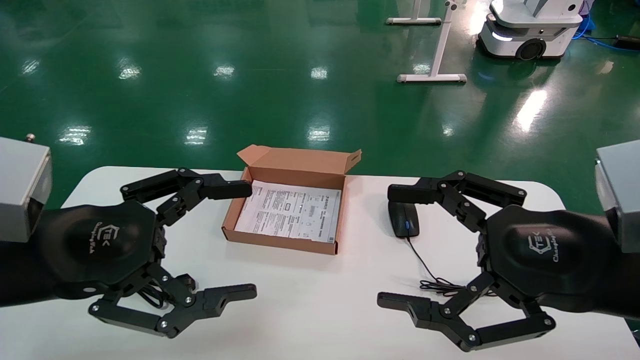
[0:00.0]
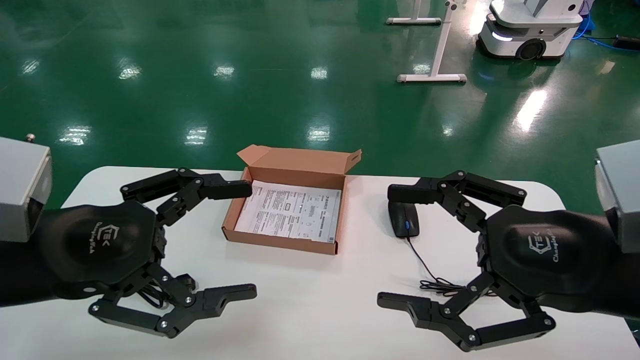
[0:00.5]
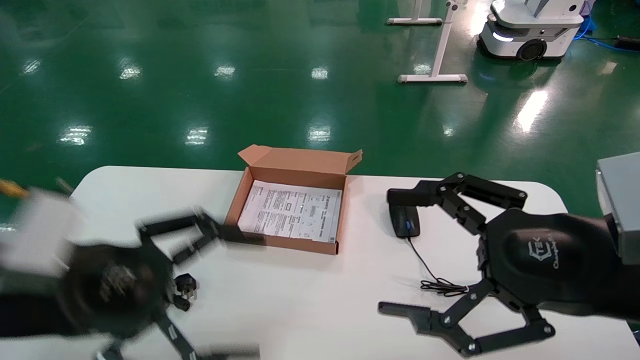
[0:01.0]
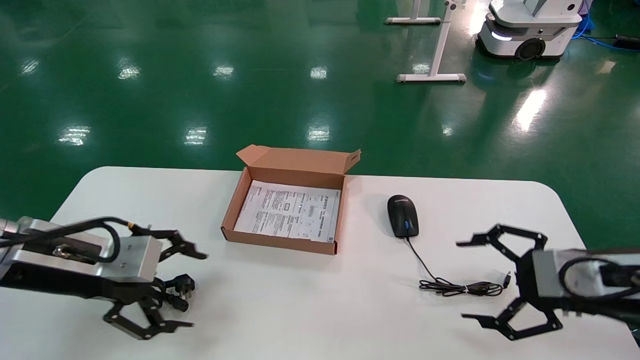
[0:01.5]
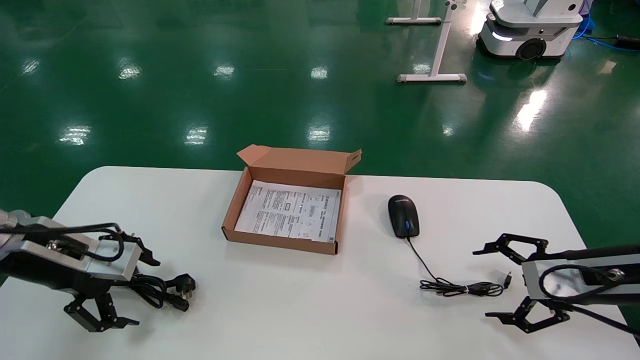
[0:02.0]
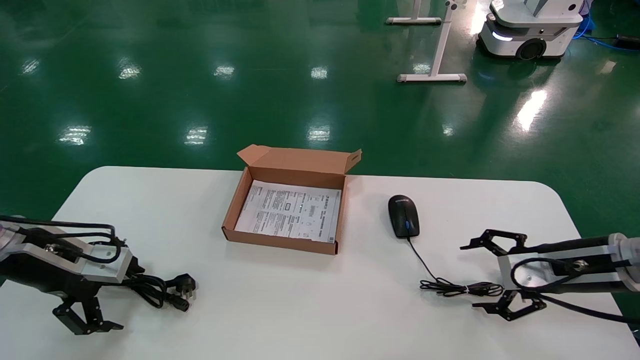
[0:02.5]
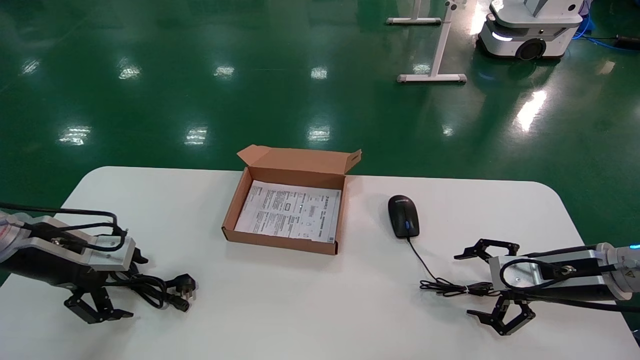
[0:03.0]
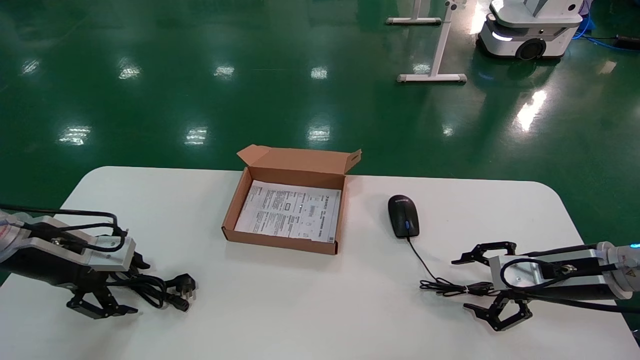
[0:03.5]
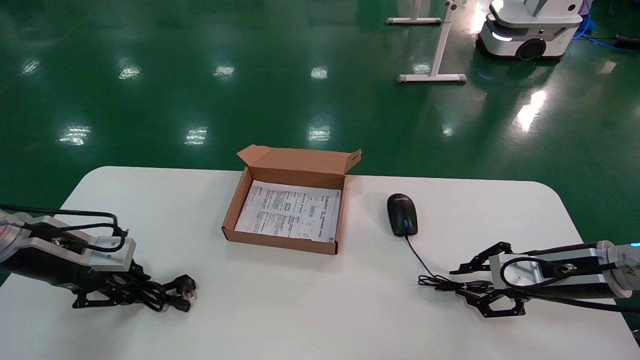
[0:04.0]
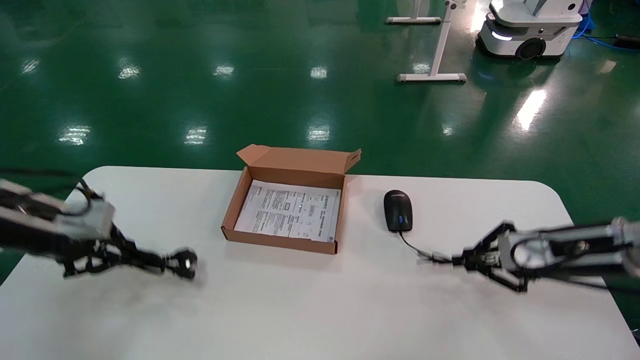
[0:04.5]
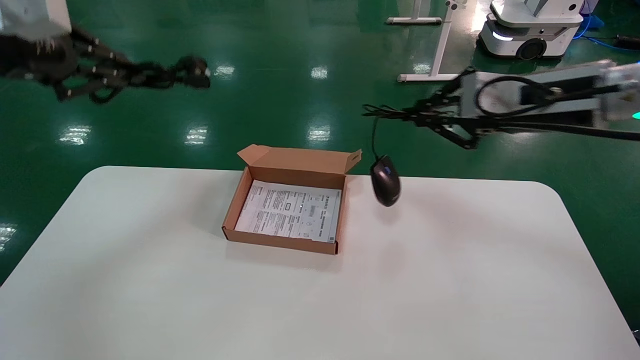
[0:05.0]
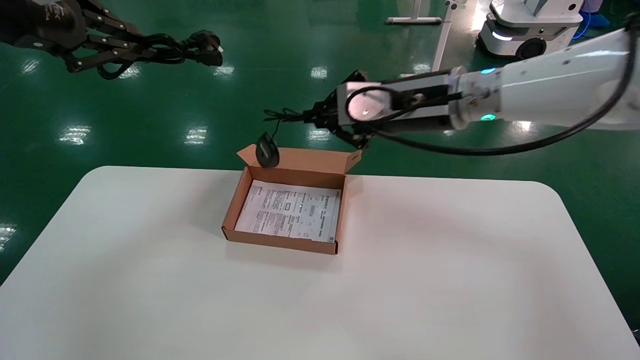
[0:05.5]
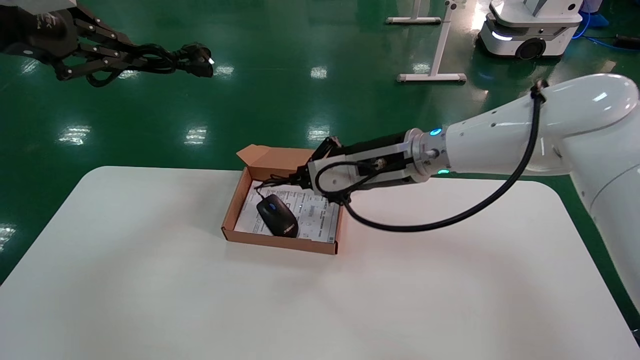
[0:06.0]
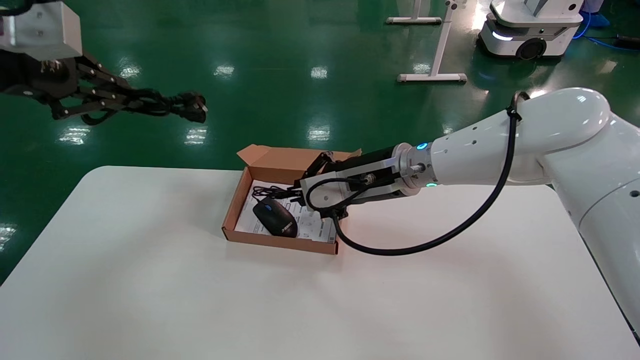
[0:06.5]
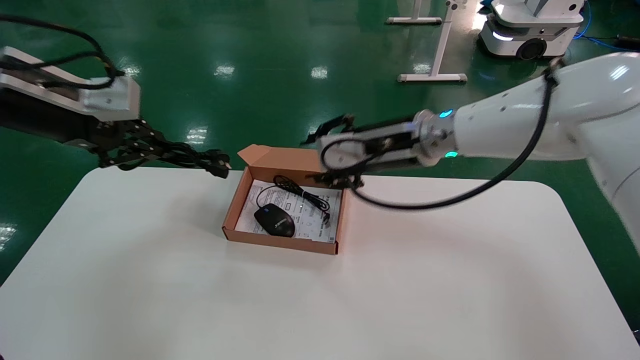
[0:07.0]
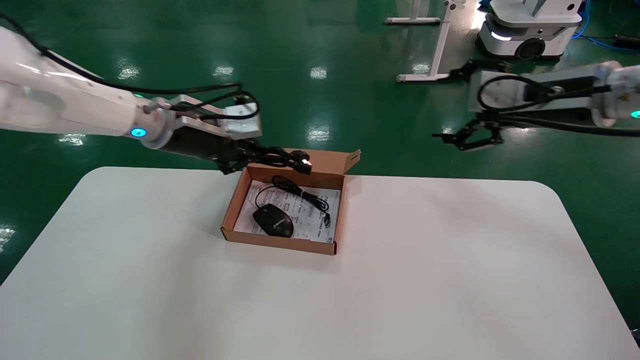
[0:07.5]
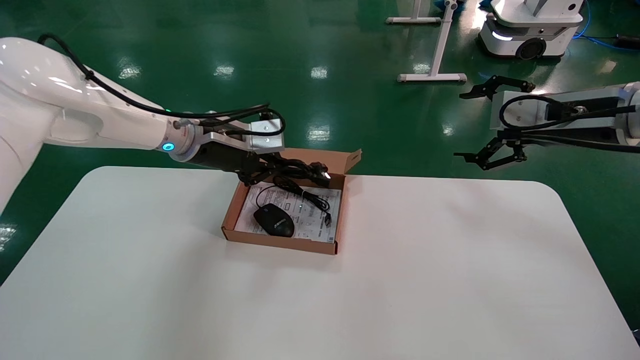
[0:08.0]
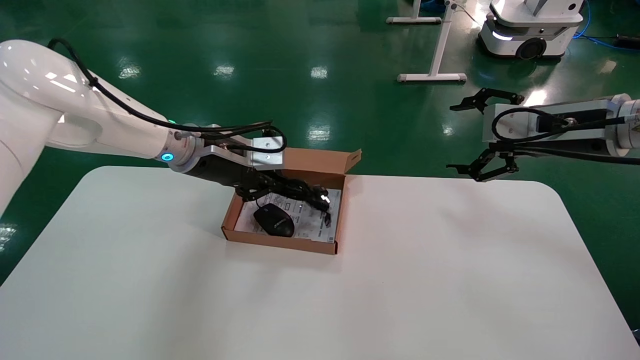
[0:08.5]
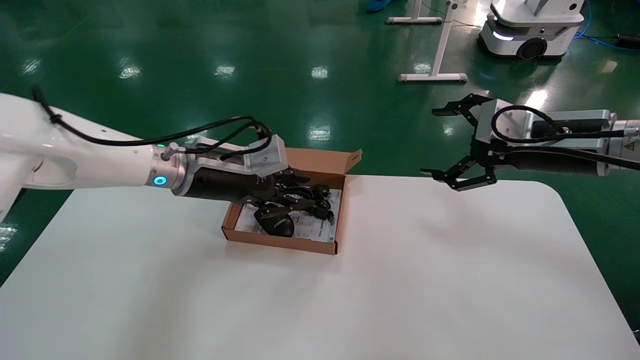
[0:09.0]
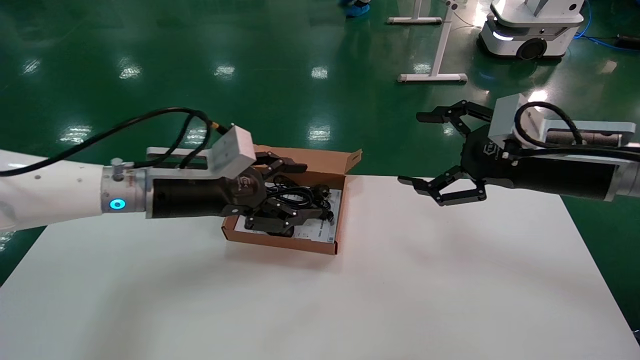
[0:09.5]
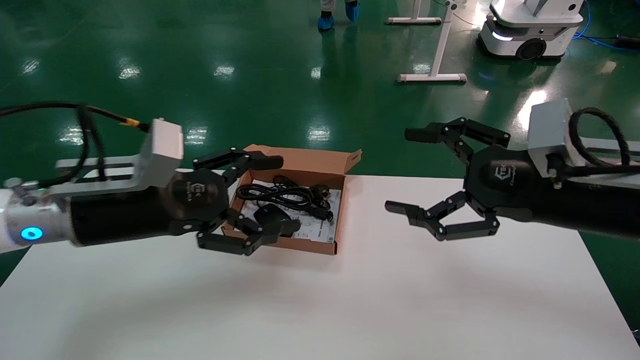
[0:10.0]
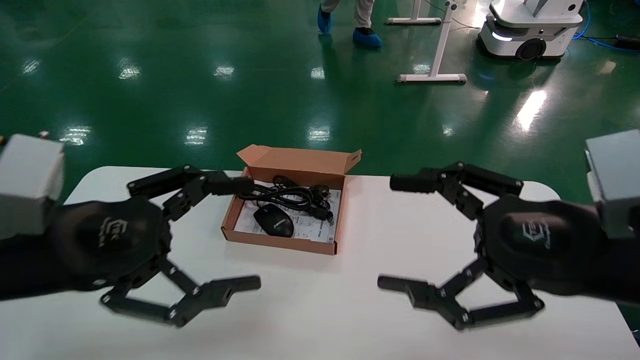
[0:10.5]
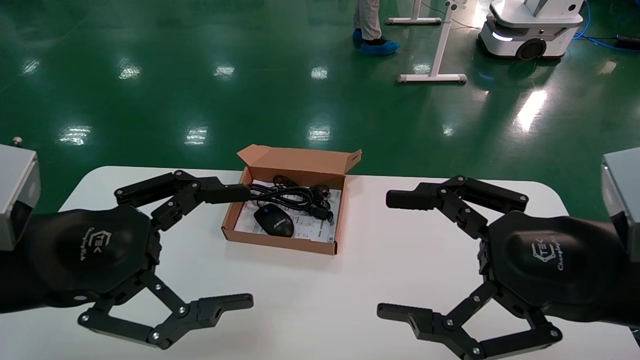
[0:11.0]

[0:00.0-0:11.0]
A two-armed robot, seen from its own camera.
Step, 0:01.5 to 0:04.5: Grab and lift both the mouse and power cord from the accessory packaging area at the same time.
Step, 0:05.0 to 0:09.5: Place the mouse and power cord into the box.
0:00.0 to 0:02.0: The left gripper heads forward, to the left and downward, covering some 15 cm; the right gripper moves forward, to the right and downward, approximately 20 cm.
0:02.0 to 0:03.5: There are only small adjustments of the grippers.
0:03.5 to 0:05.5: The right gripper shifts about 30 cm to the left and upward, and closes its fingers. The left gripper travels upward by some 30 cm, and closes its fingers.
0:05.5 to 0:07.5: The left gripper travels downward, forward and to the right by approximately 25 cm, while the right gripper shifts roughly 15 cm to the right, and opens up.
0:07.5 to 0:09.0: The left gripper is displaced downward by approximately 5 cm. Meanwhile the right gripper shifts by about 5 cm.
0:09.0 to 0:11.0: The two grippers go some 20 cm backward. The left gripper opens up.

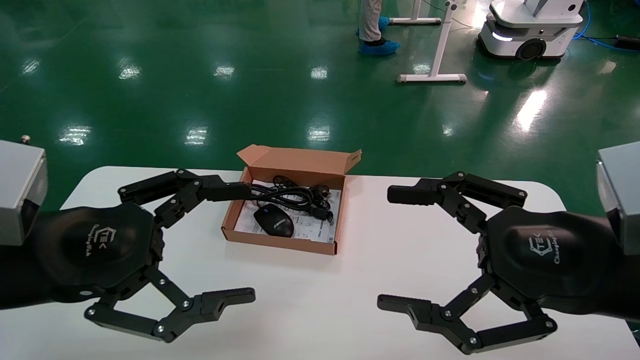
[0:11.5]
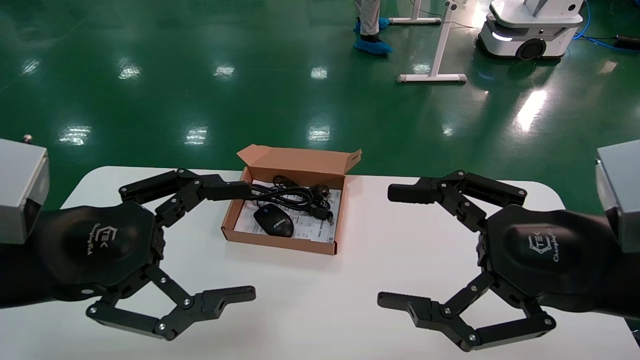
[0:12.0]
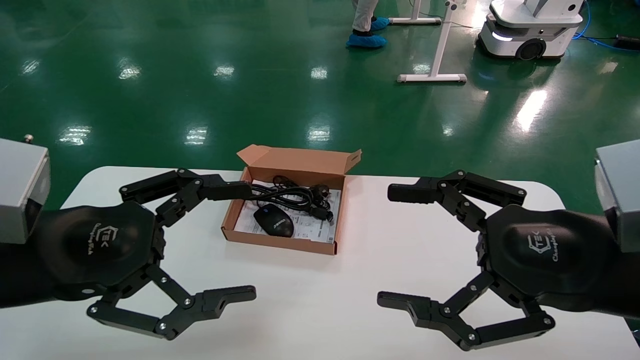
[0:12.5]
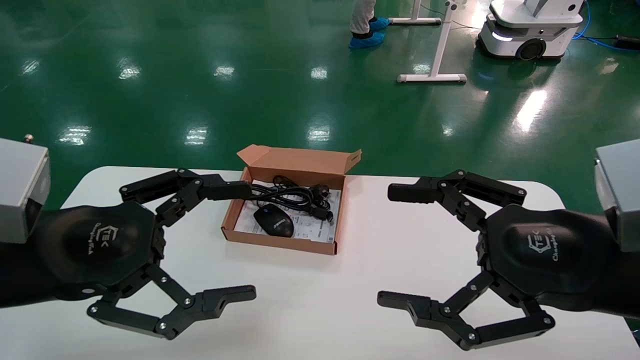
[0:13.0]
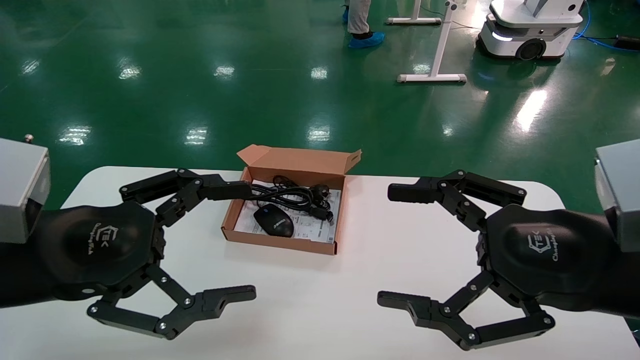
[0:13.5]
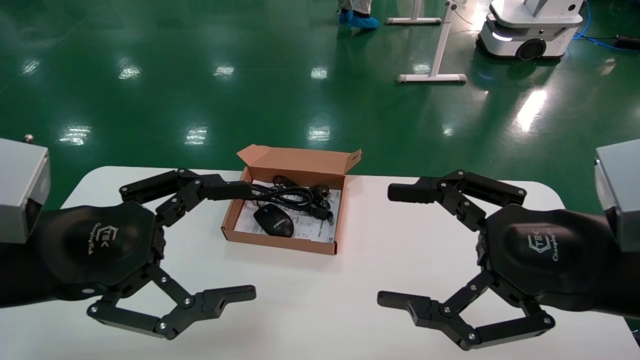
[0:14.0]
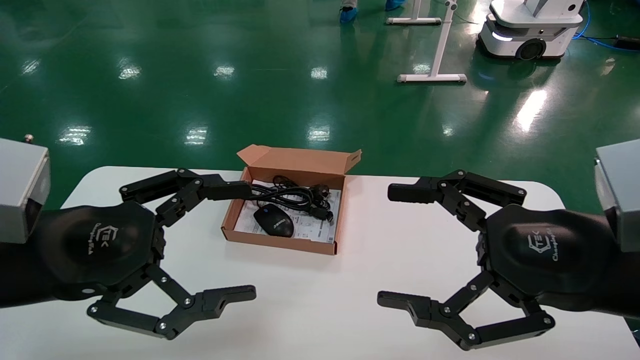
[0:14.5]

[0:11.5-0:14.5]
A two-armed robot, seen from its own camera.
0:11.5 to 0:14.5: Neither gripper changes place.
